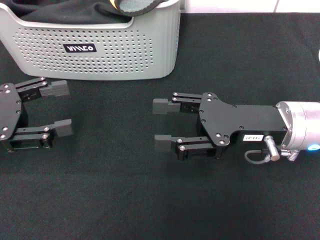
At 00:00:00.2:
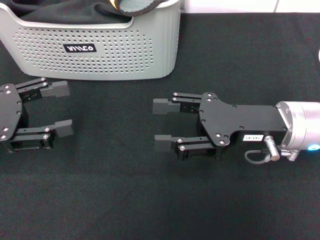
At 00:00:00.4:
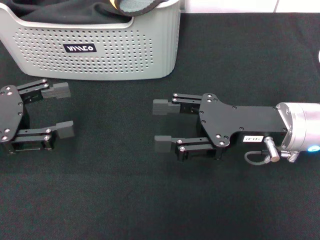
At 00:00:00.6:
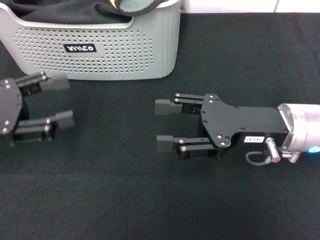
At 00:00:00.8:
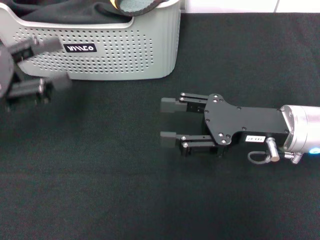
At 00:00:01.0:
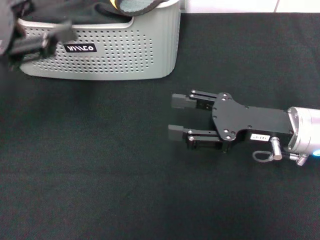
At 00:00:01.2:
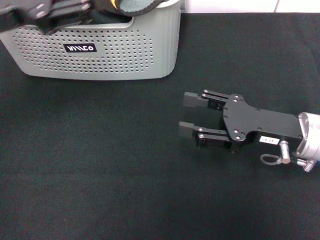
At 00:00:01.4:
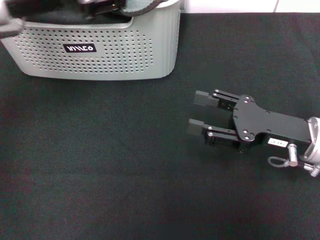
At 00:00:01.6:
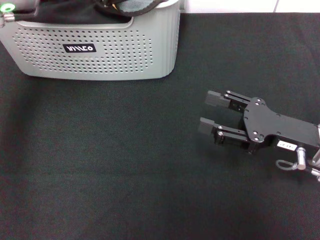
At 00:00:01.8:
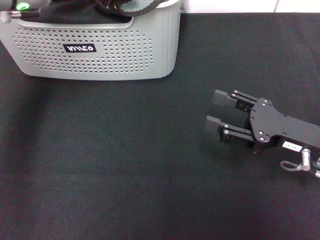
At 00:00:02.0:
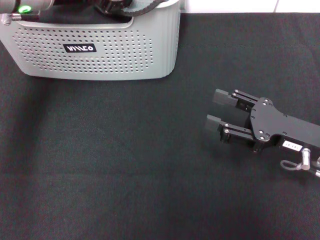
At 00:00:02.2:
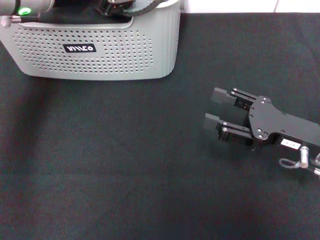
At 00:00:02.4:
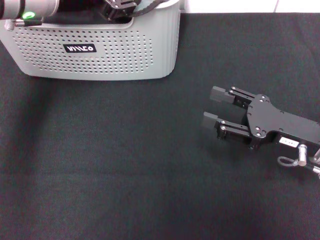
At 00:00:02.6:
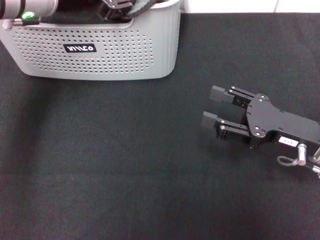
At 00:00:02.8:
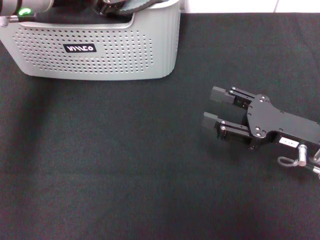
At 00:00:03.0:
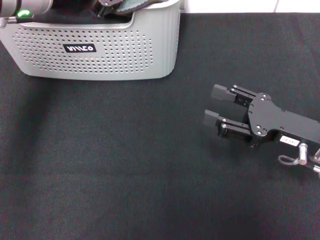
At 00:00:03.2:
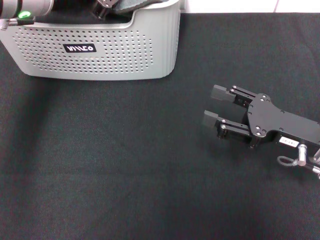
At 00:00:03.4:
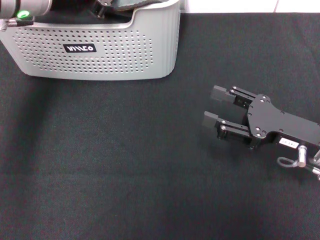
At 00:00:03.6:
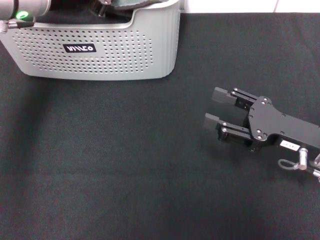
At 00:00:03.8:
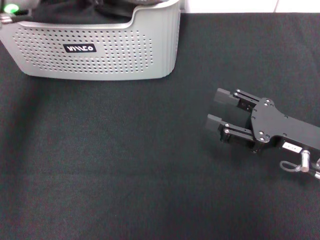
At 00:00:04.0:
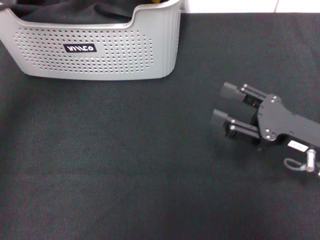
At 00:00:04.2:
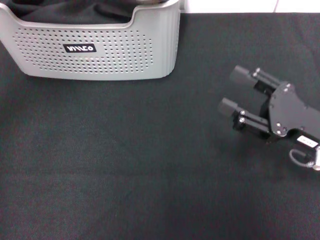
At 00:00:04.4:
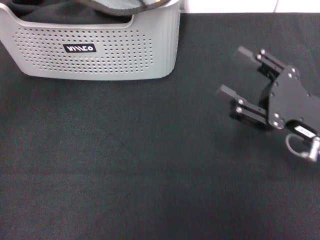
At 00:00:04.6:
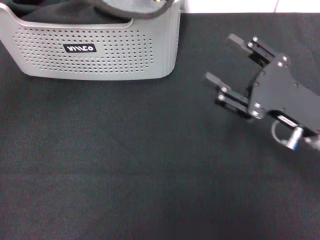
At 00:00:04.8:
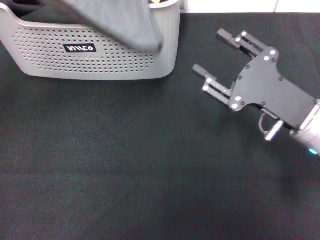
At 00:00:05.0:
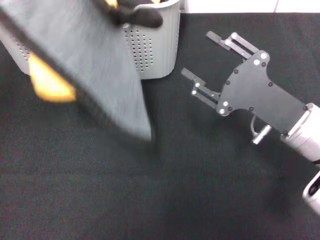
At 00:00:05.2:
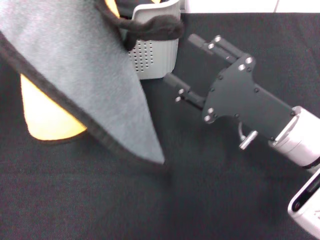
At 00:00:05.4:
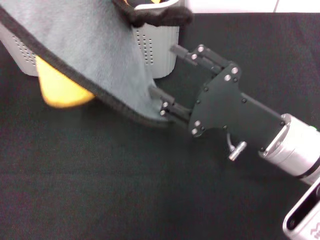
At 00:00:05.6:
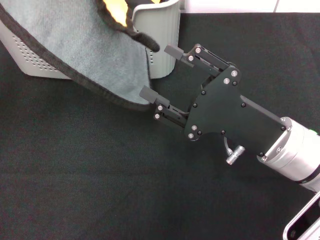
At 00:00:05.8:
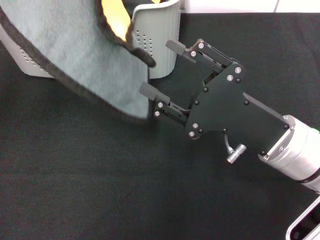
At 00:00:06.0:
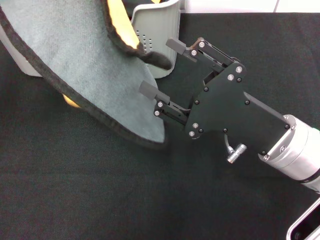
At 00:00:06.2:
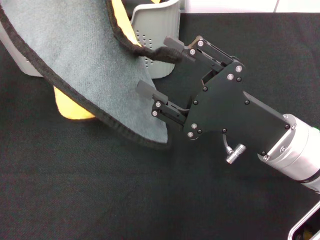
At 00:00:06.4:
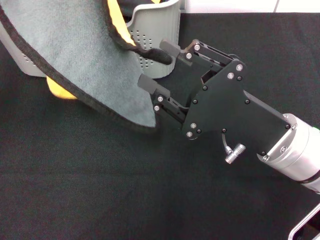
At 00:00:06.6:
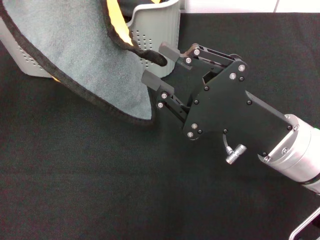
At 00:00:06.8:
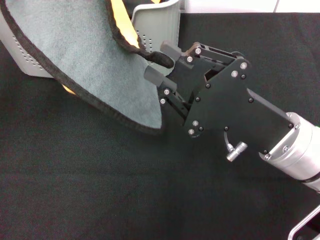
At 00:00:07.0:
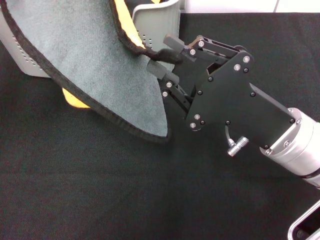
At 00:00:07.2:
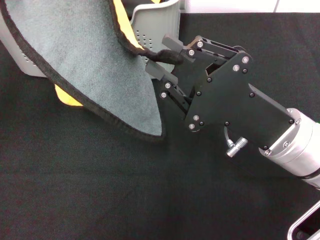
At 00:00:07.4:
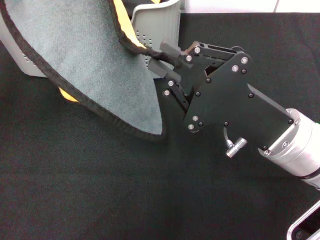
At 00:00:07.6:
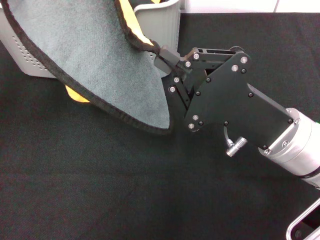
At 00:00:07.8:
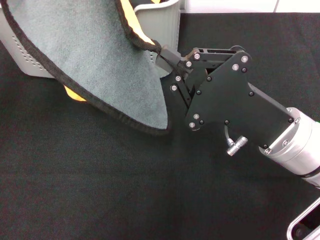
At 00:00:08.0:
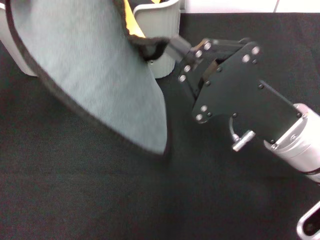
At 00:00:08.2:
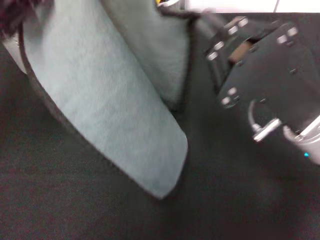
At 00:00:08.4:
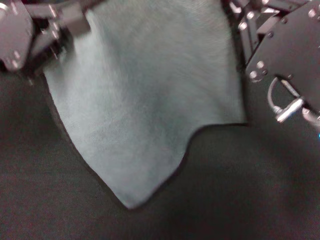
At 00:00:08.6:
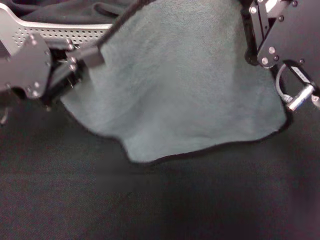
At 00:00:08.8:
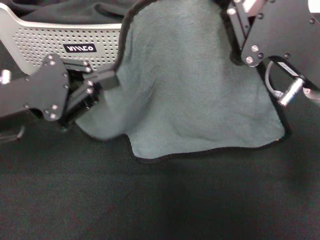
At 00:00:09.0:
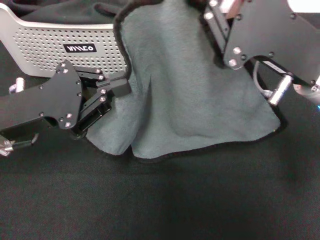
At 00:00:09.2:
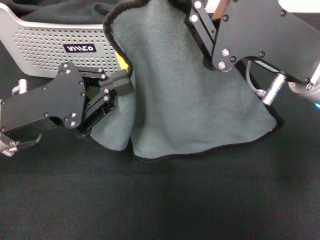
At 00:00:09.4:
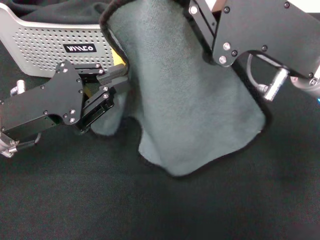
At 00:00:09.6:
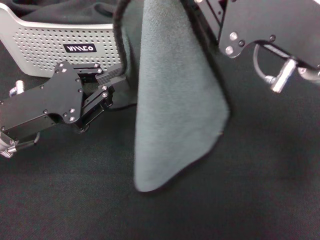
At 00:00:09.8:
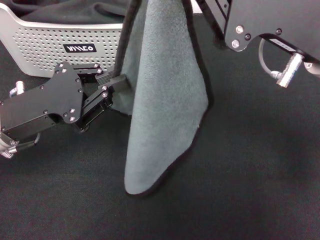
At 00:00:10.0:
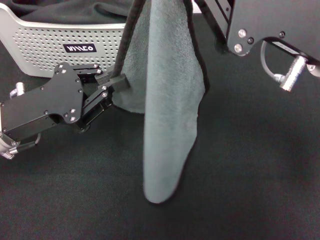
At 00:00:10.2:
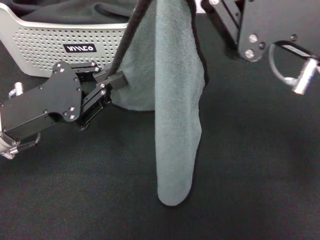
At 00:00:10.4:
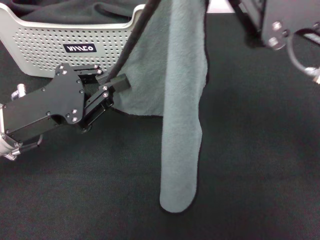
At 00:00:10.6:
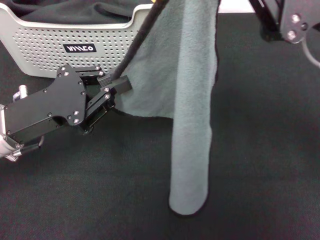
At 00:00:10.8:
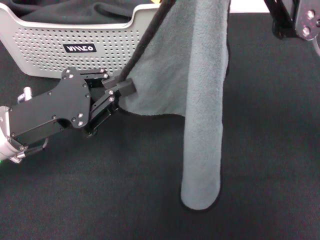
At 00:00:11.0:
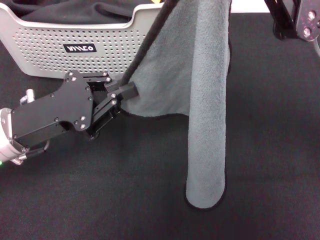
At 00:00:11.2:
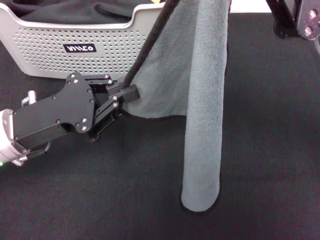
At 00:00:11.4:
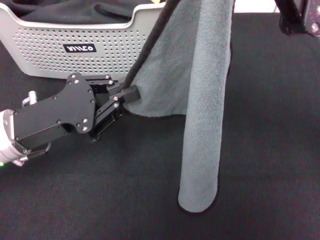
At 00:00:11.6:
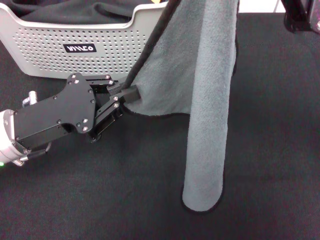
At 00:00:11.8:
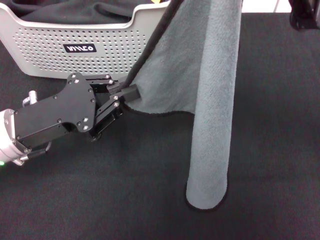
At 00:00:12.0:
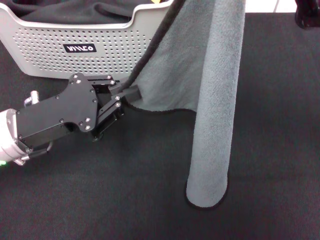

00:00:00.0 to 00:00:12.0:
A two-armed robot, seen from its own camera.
Task of the whole recording: pick up the towel from the storage box and lay it flat on the black tablecloth.
Step, 00:00:00.0 to 00:00:03.6: Pick up a towel with the left gripper.
Step, 00:00:03.8 to 00:00:07.8: Spread the towel flat with the left gripper.
00:00:00.0 to 00:00:01.6: The left gripper goes approximately 20 cm forward, to the right and upward; the right gripper shifts roughly 5 cm to the right.
00:00:01.6 to 00:00:03.0: The grippers stay close to where they were, moving slightly.
00:00:03.0 to 00:00:04.4: The left gripper travels backward, to the left and upward by about 10 cm, and closes up.
00:00:04.4 to 00:00:06.0: The right gripper travels to the left by about 10 cm.
00:00:06.0 to 00:00:07.6: The right gripper closes.
00:00:07.6 to 00:00:09.0: The right gripper goes roughly 5 cm upward. The left gripper moves downward, approximately 15 cm.
00:00:09.0 to 00:00:10.4: The right gripper moves upward, approximately 5 cm.

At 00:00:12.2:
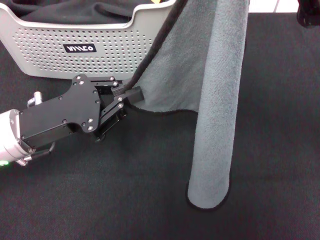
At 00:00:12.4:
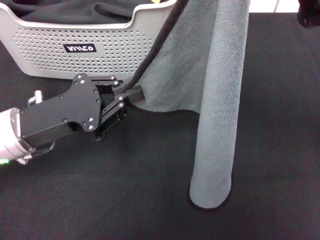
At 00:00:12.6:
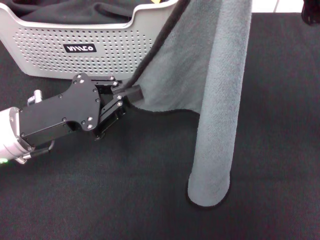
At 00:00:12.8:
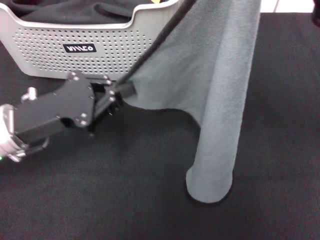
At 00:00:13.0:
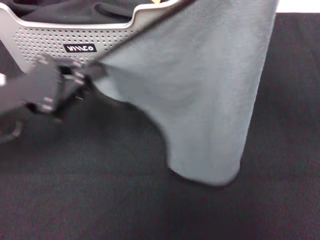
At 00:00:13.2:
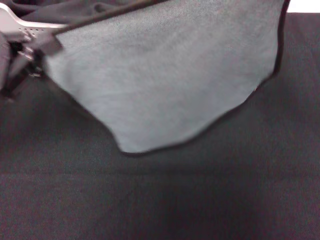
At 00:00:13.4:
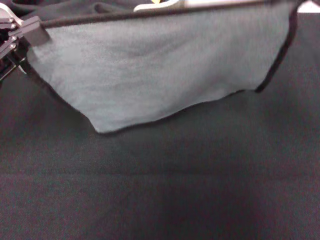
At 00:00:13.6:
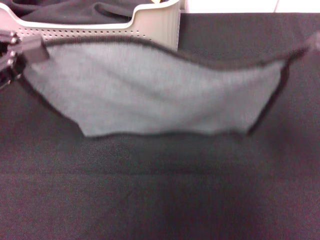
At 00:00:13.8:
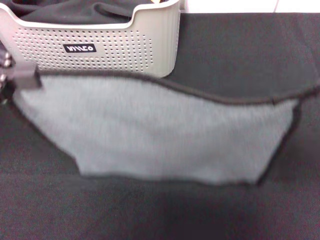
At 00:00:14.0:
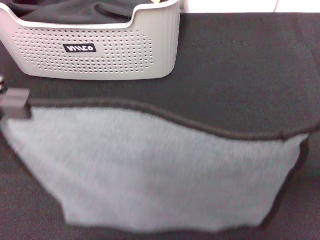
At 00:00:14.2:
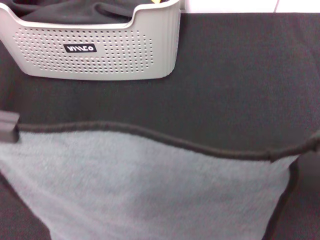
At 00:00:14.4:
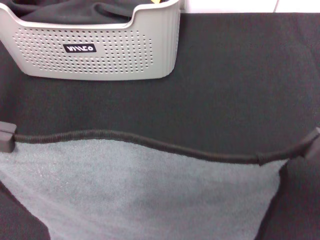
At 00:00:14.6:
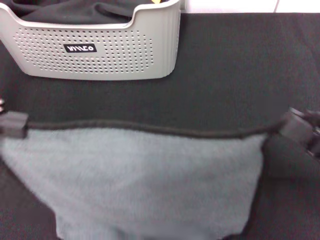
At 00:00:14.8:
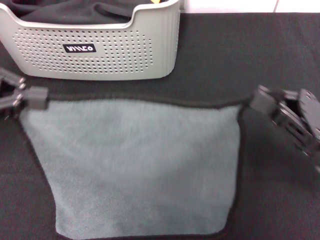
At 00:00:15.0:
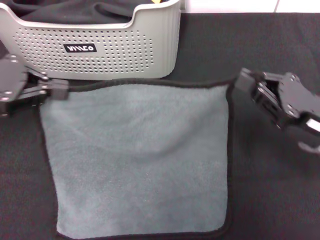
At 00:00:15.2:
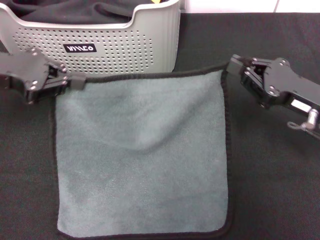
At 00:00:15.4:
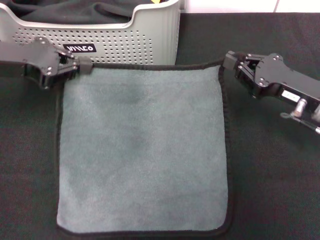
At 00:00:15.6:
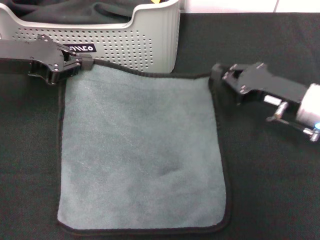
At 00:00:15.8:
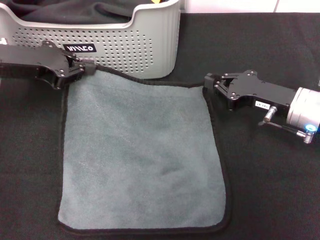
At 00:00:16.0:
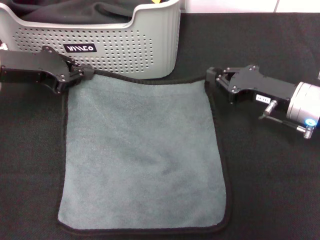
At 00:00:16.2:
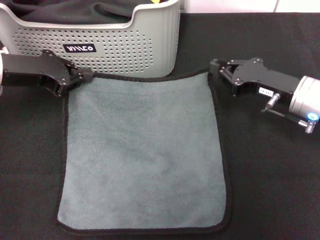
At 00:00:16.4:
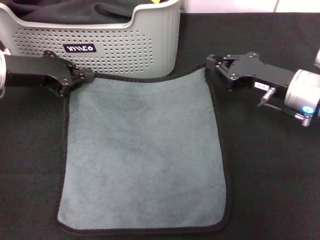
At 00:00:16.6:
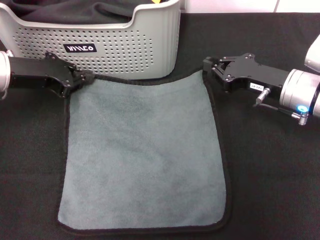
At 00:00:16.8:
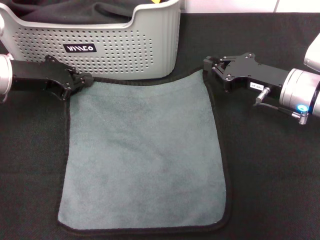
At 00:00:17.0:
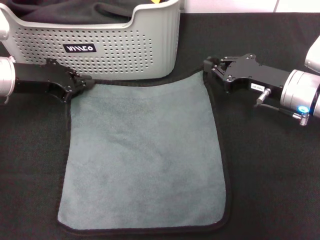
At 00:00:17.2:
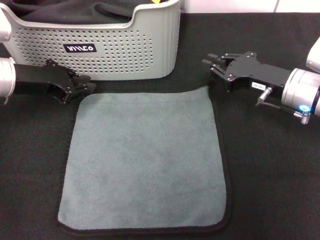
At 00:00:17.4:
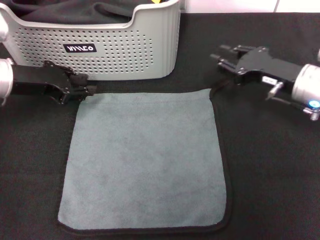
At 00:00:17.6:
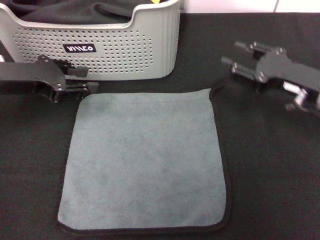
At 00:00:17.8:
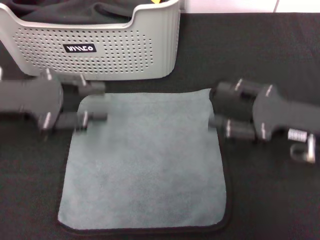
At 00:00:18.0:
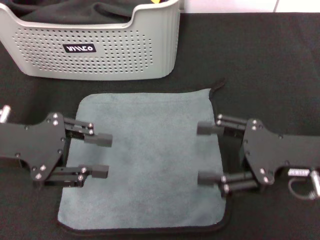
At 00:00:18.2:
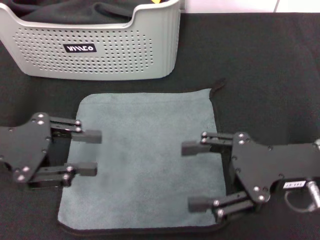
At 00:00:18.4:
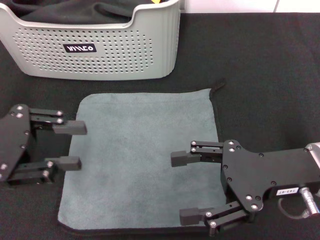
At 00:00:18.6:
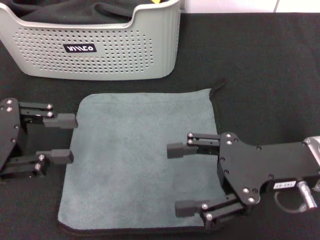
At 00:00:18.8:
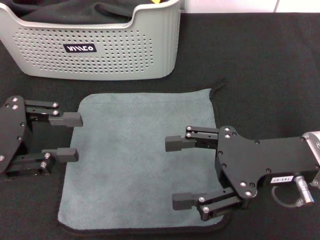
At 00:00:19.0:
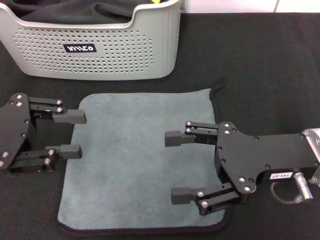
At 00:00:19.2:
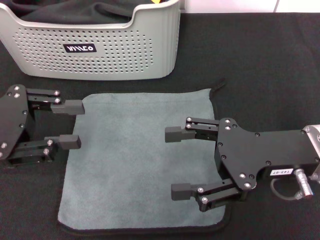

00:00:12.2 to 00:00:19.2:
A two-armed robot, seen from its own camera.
Task of the whole recording: pick up the towel from the storage box and lay it flat on the black tablecloth.
Step, 00:00:12.2 to 00:00:17.2: Spread the towel flat with the right gripper.
00:00:12.2 to 00:00:13.6: The left gripper moves upward and to the left, about 15 cm. The right gripper travels downward and to the right by about 10 cm.
00:00:13.6 to 00:00:15.0: The right gripper heads downward, covering roughly 10 cm, and moves about 5 cm backward and comes back.
00:00:15.0 to 00:00:16.4: The left gripper heads downward and forward, covering roughly 10 cm; the right gripper travels forward by some 10 cm.
00:00:16.4 to 00:00:17.8: Both grippers move backward, roughly 5 cm. The left gripper opens its fingers. The right gripper opens.
00:00:17.8 to 00:00:19.2: The right gripper goes about 5 cm to the left.
